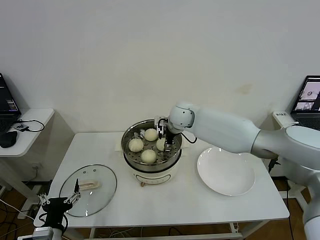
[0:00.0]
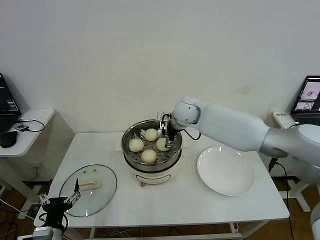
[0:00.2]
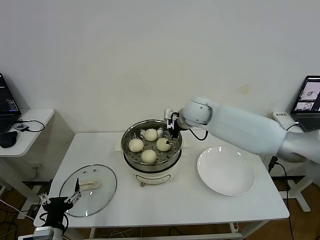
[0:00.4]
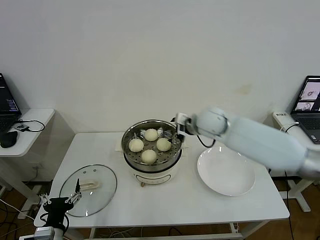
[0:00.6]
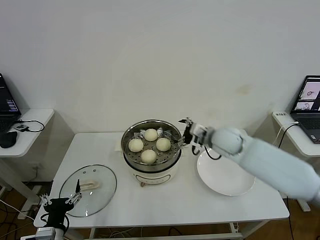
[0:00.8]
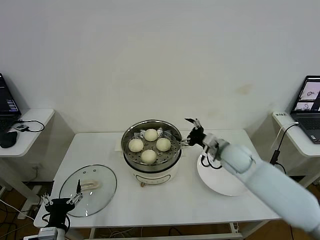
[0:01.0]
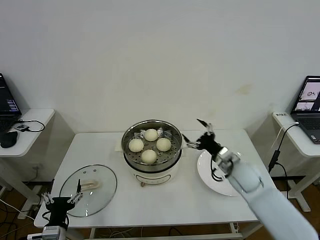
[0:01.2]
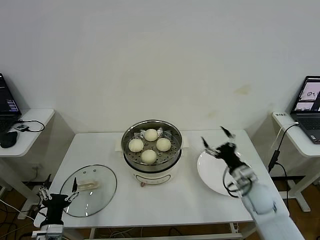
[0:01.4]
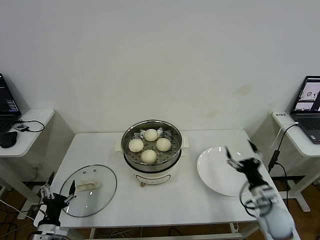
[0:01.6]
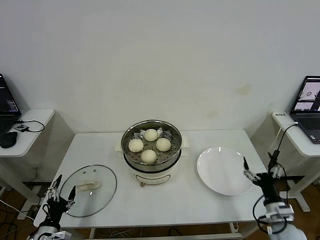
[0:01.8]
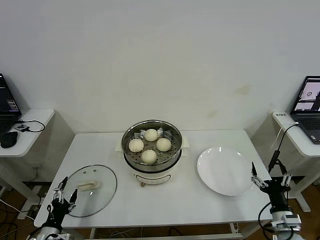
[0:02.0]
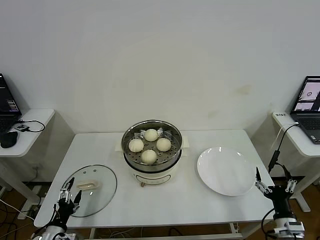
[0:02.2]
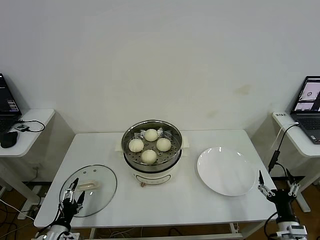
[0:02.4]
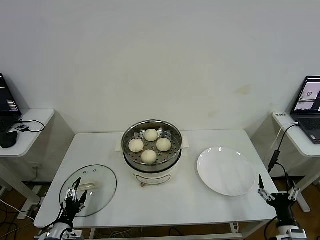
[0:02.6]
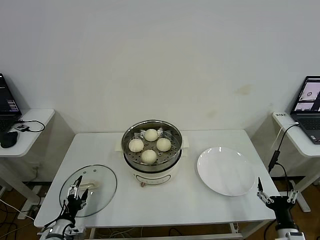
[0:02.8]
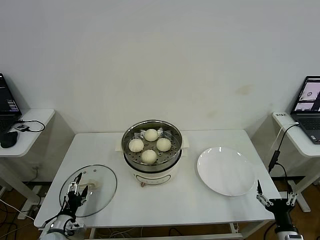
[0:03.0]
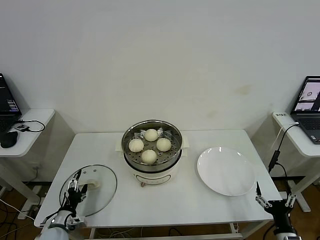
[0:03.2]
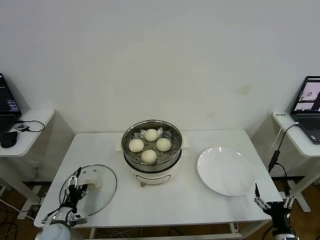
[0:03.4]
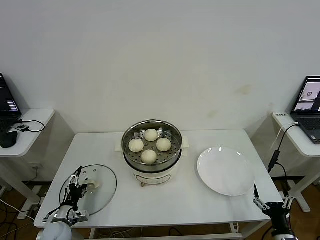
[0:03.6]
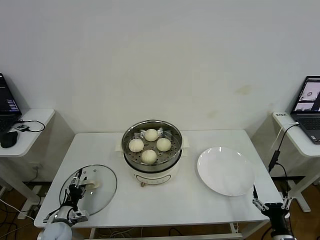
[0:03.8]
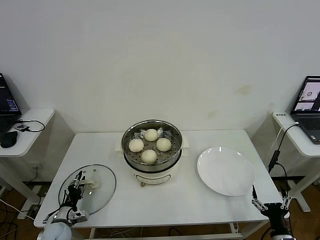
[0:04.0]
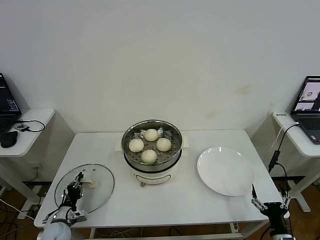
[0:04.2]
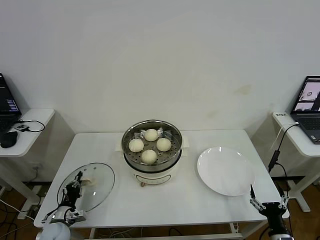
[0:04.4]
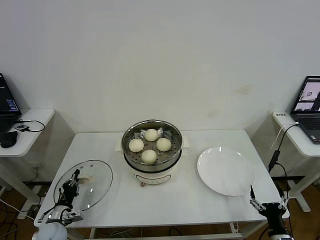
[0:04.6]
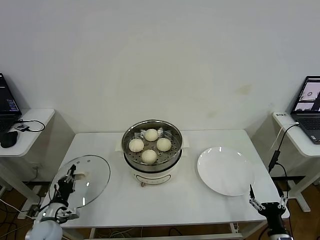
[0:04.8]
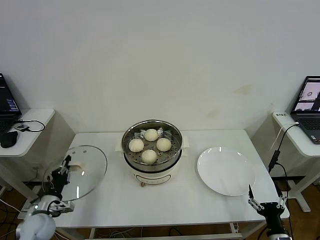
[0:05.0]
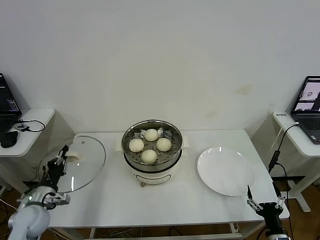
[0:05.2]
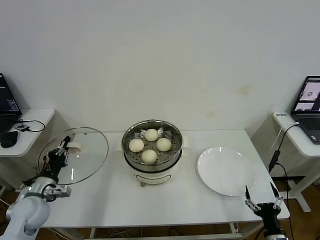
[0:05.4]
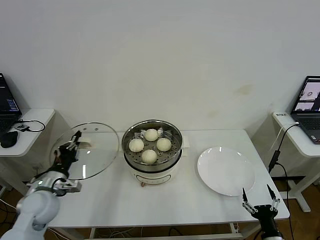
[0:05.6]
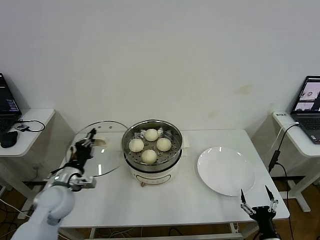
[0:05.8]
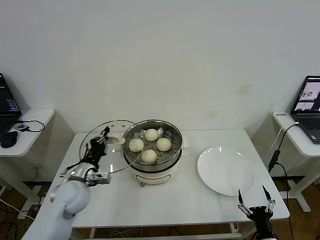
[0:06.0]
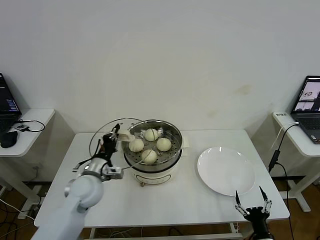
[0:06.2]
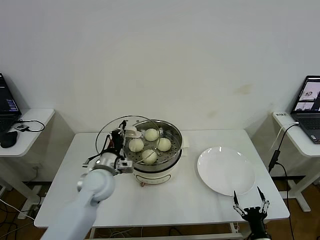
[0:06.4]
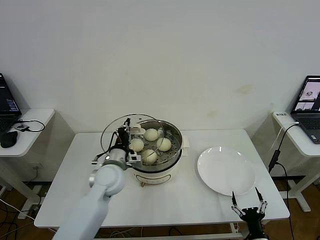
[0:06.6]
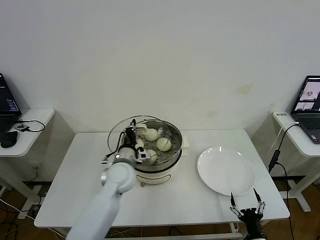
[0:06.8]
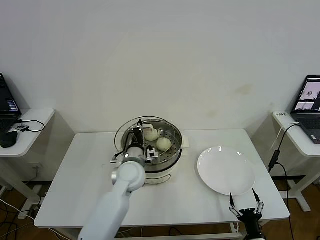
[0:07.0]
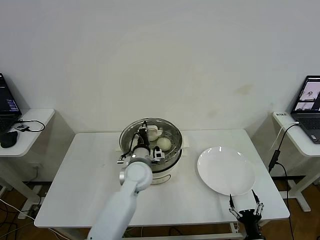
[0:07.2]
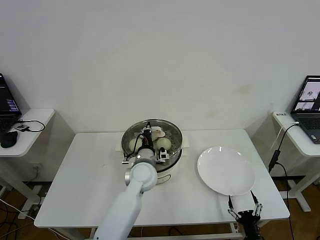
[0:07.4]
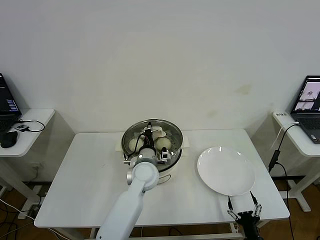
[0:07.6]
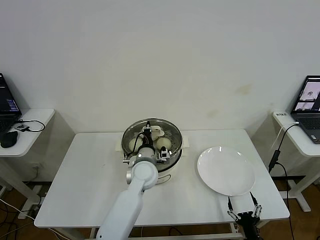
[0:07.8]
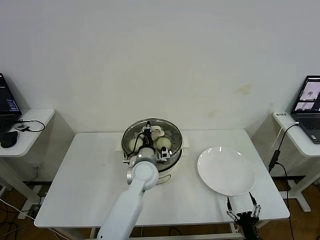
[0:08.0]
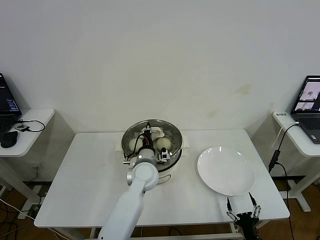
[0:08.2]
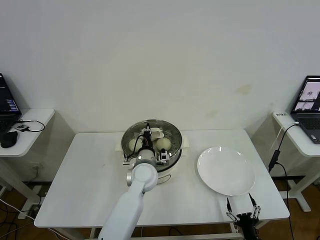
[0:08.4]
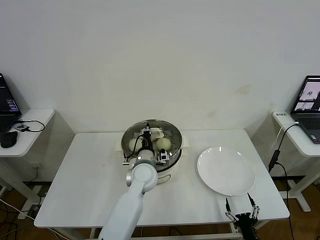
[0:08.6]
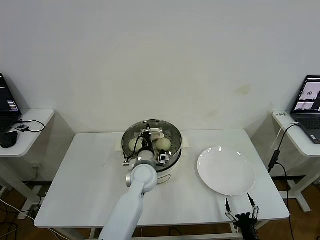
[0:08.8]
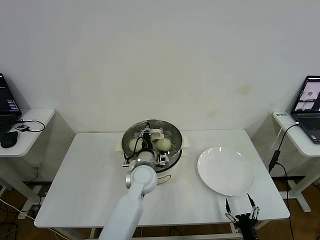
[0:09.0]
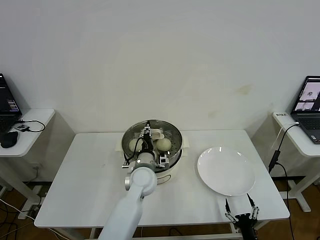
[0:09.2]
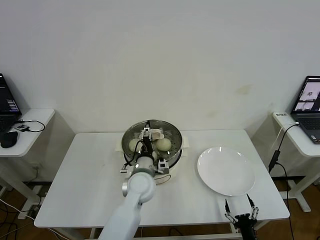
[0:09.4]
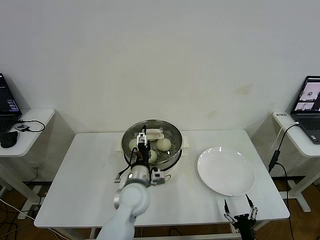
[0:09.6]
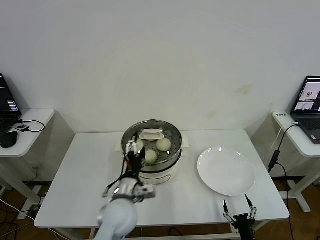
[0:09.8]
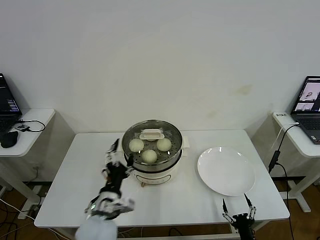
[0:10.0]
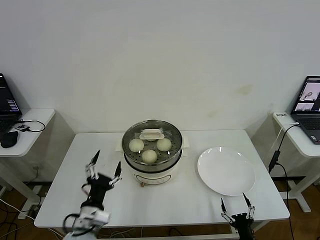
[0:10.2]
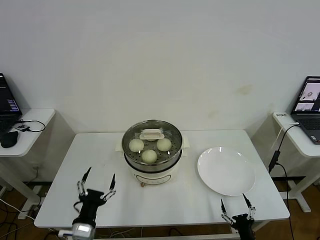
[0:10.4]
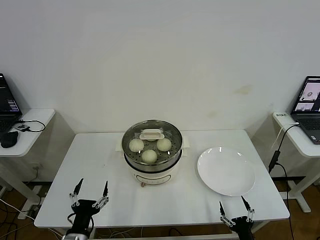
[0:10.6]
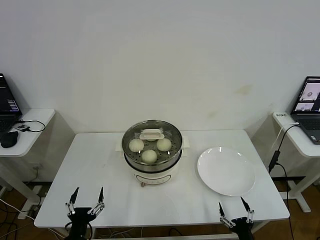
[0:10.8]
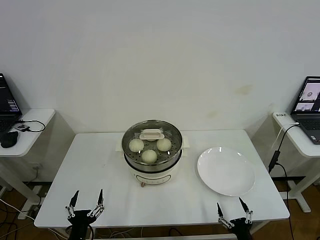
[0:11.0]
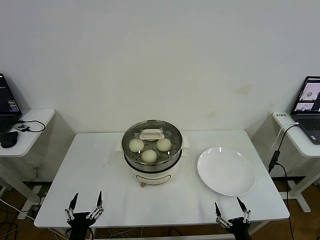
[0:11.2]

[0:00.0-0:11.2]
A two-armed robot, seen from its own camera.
Step, 0:00.2 to 0:04.2: Grasp the pot lid with left gripper.
Step, 0:04.4 to 0:08.4: Place the pot lid on the steamer with left gripper.
0:00.0 to 0:01.6: The right gripper travels backward, to the right and downward by some 40 cm; the left gripper heads downward and to the left, covering about 5 cm.
0:01.6 to 0:03.2: The left gripper goes some 5 cm forward, while the right gripper goes approximately 15 cm backward and downward.
0:03.2 to 0:04.8: The left gripper closes its fingers.
0:04.8 to 0:06.4: The right gripper ends up some 5 cm from where it was, while the left gripper moves to the right, upward and forward, some 30 cm.
0:06.4 to 0:08.0: The left gripper moves to the right, roughly 15 cm.
0:08.0 to 0:09.6: The left gripper shifts roughly 5 cm backward, and opens.
0:09.6 to 0:11.2: The right gripper ends up roughly 5 cm from where it was; the left gripper heads backward, to the left and downward, covering approximately 30 cm.
